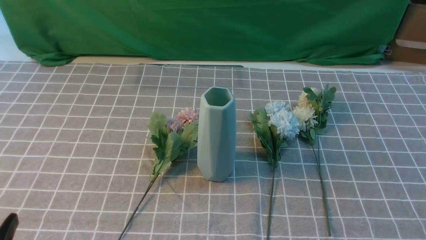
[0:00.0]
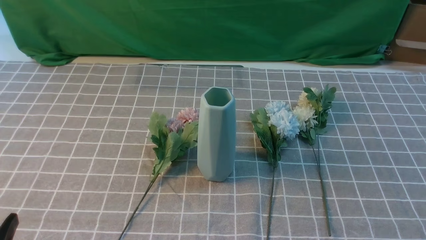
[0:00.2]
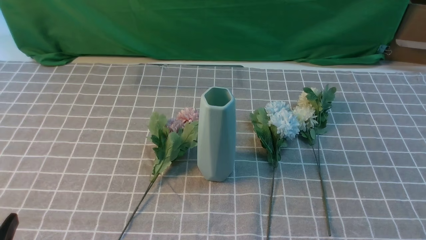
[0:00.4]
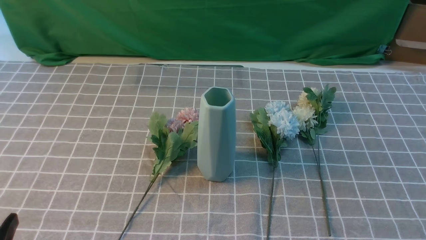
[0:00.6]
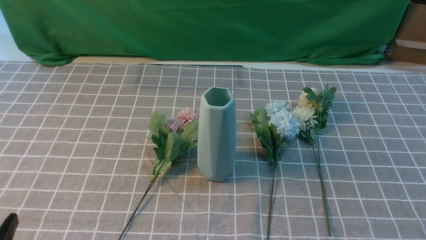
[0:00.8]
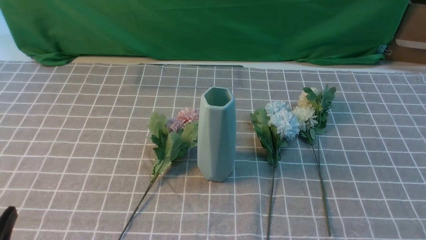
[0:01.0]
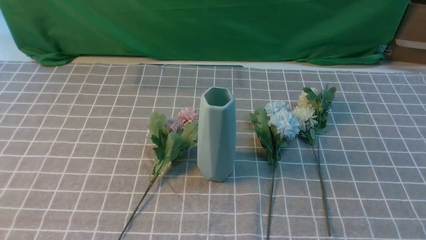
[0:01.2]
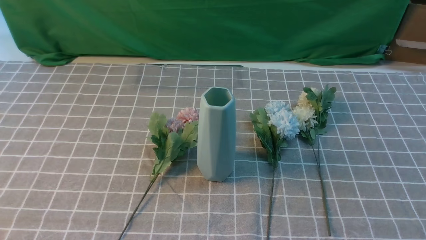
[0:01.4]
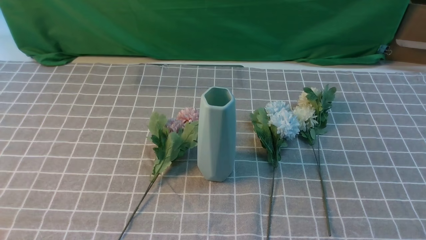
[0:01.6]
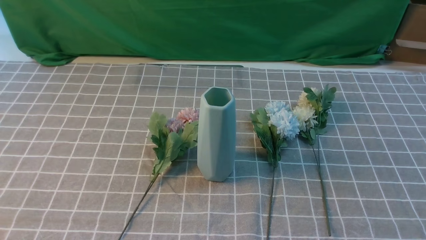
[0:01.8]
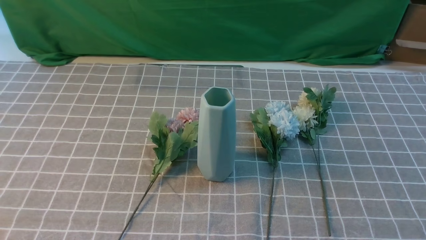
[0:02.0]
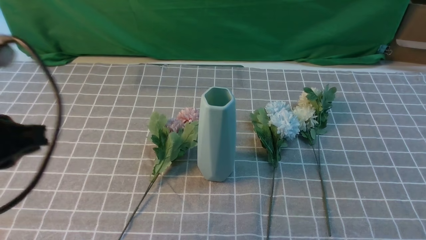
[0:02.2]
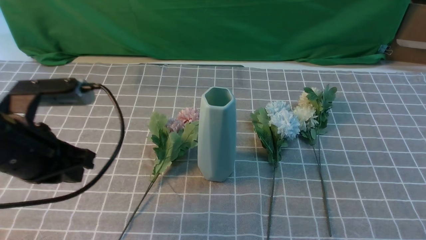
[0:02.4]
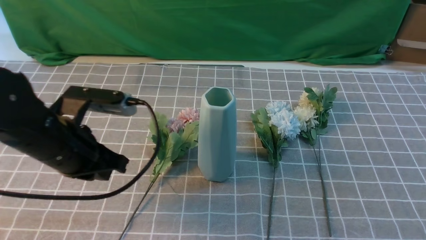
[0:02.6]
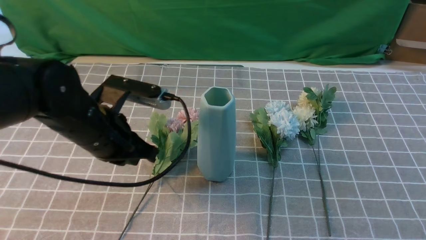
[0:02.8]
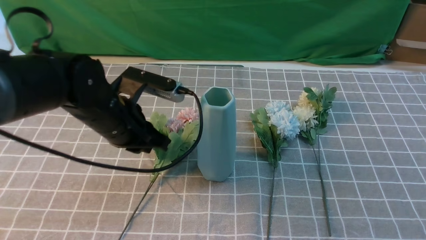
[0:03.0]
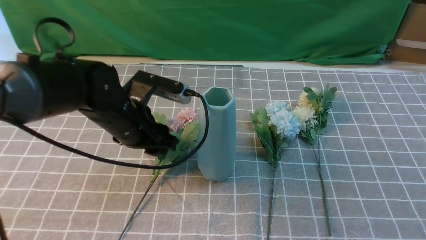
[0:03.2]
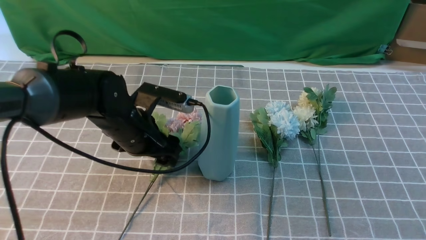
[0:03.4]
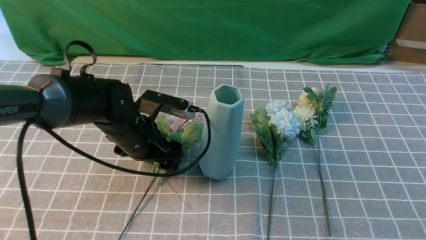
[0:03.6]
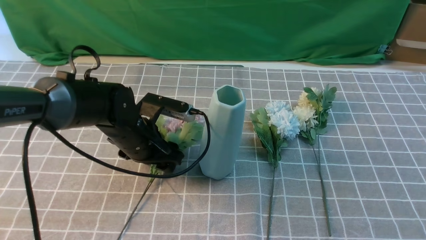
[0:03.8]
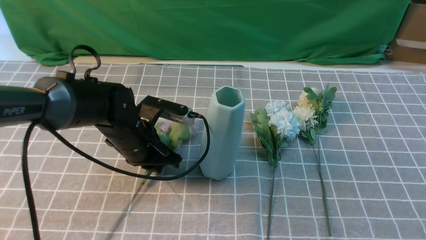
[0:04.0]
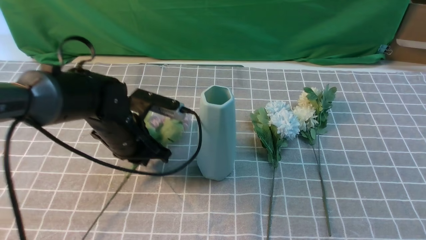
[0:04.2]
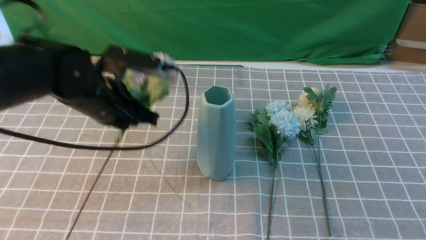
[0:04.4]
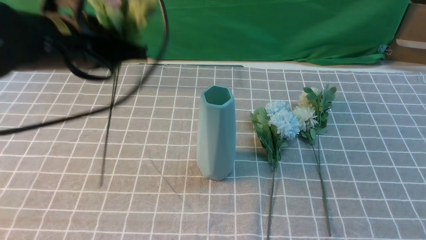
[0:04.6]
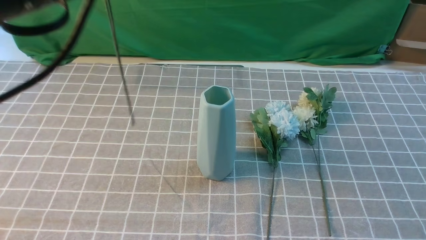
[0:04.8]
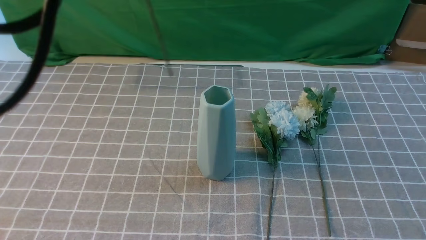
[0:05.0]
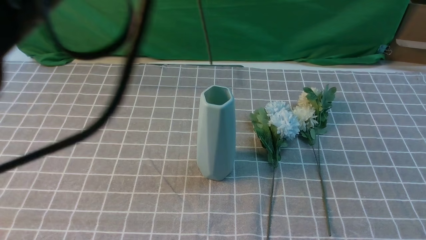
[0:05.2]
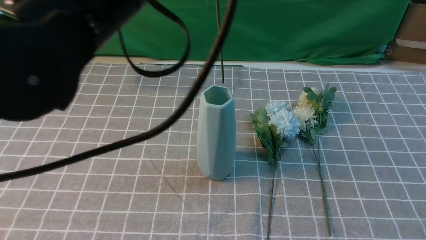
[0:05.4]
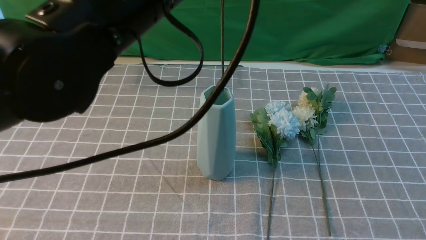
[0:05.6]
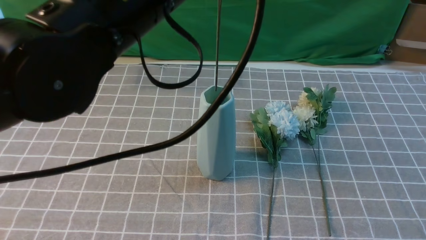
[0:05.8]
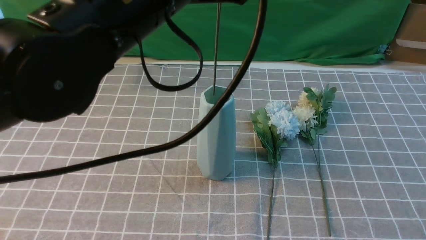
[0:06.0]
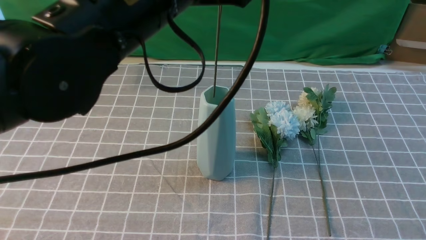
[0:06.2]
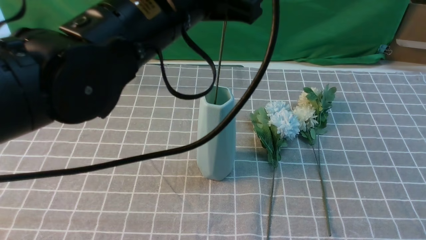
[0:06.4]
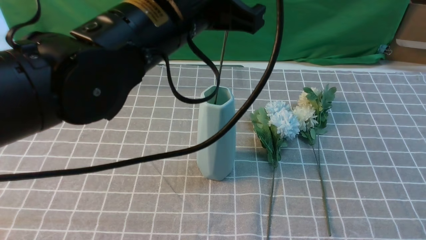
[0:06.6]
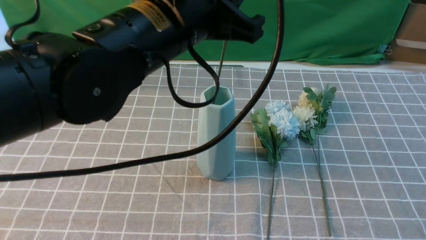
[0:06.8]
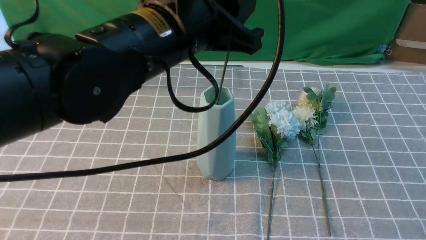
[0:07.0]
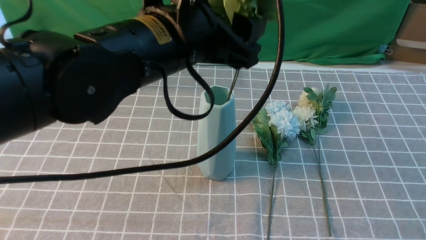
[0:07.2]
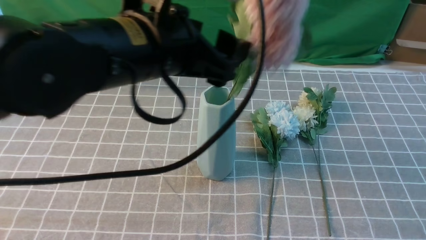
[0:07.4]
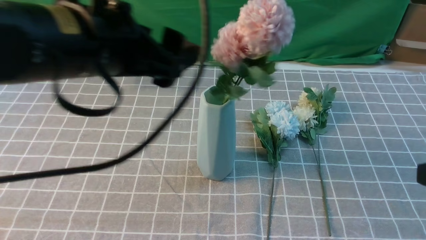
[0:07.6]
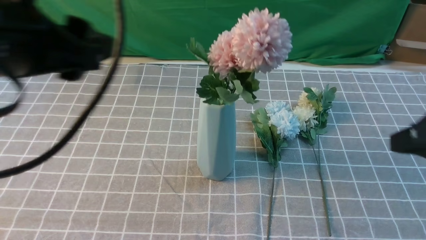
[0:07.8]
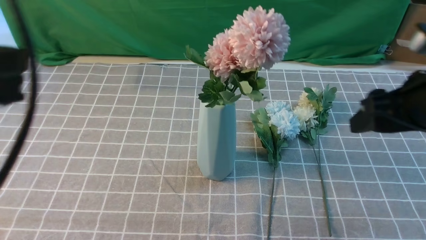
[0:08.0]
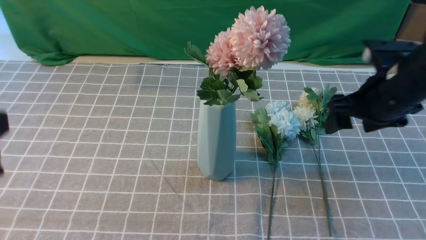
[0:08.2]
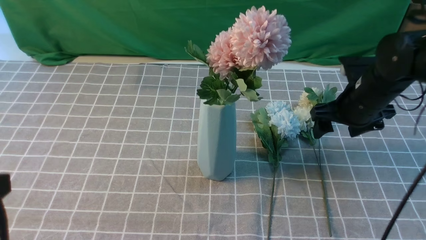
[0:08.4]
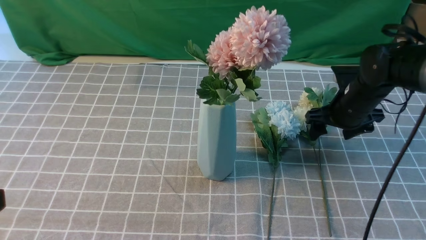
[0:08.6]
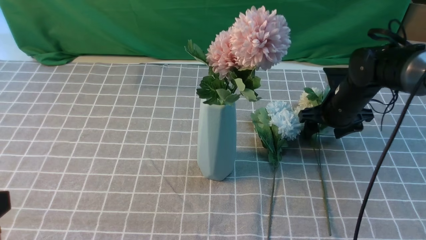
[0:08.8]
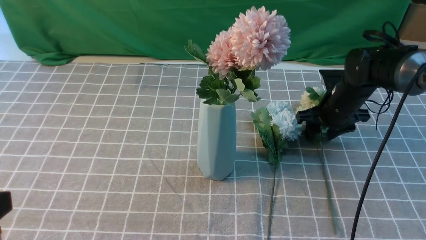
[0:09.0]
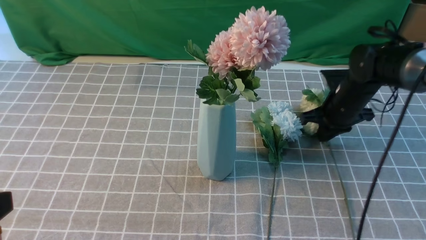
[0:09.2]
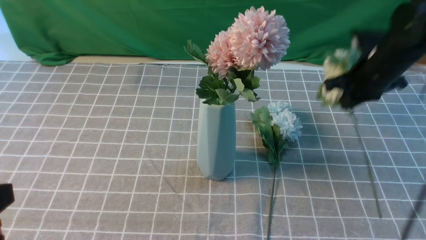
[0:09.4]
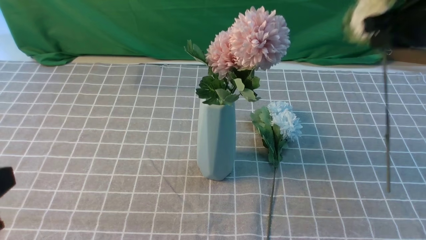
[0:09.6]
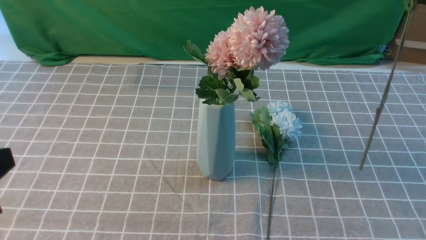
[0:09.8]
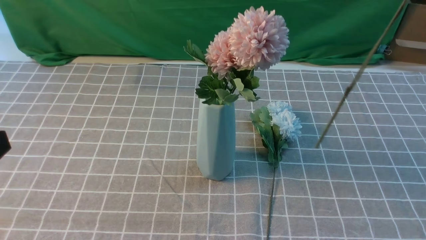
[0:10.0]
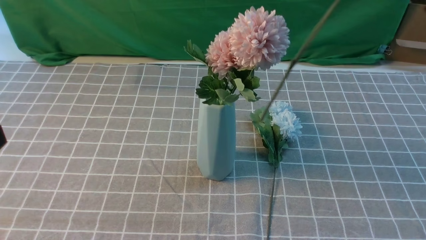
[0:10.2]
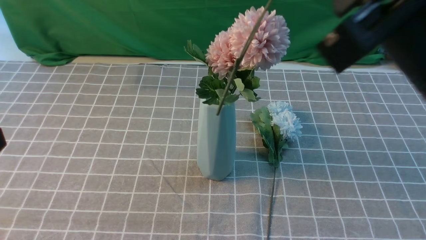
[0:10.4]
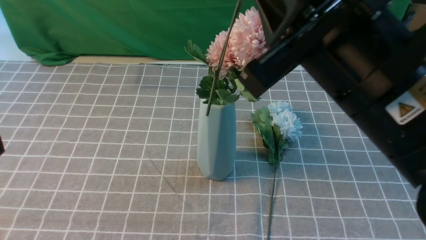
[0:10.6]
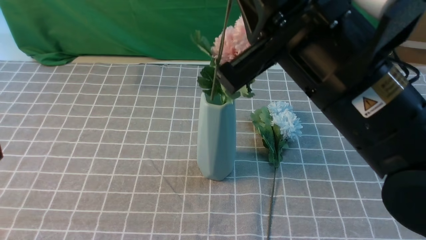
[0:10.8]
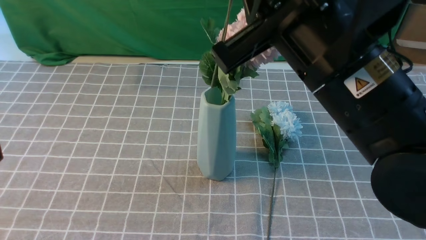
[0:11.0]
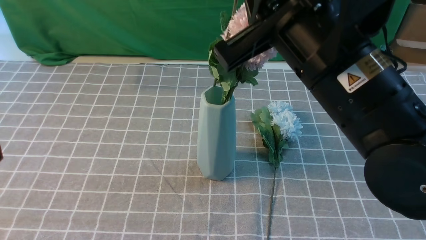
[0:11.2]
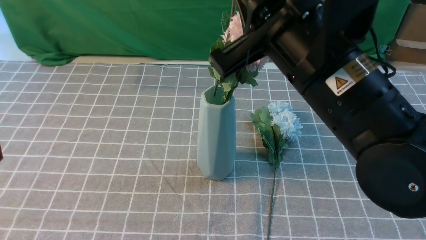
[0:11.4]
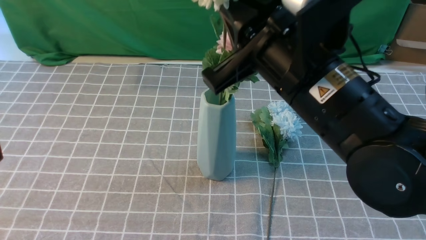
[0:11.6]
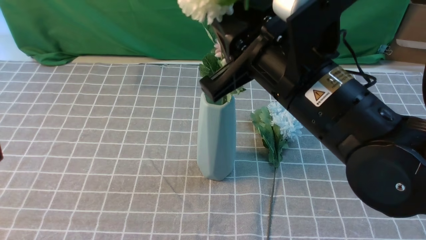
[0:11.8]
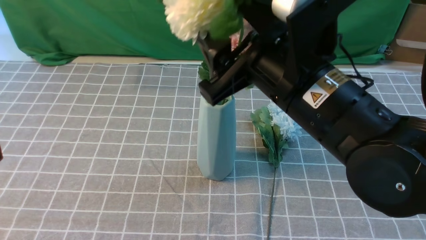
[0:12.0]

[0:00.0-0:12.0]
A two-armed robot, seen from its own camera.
Task of the whole recording: insert the flowers into the vase on the table with the grey tablecloth.
Step, 0:00.0 to 0:03.8: use the left arm to grab a bunch of fresh flowers.
Step, 0:04.0 to 0:07.6: use the left arm to insert the flowers into the vase.
Step, 0:07.8 to 0:09.0: use the right arm to grab a bunch of fresh flowers.
0:01.6 to 0:03.0: The right gripper shifts some 15 cm upward, and closes. Meanwhile the left gripper travels forward and to the right by about 30 cm.
0:03.0 to 0:04.4: The left gripper heads upward, covering about 5 cm, and opens, then closes again.
0:04.4 to 0:06.0: The left gripper shifts approximately 20 cm upward, to the right and backward.
0:06.0 to 0:07.6: The left gripper goes some 5 cm to the left, and opens its fingers. Meanwhile the right gripper is displaced forward by approximately 5 cm.
0:07.6 to 0:09.0: The left gripper is displaced backward, to the left and downward by approximately 20 cm, and closes up; the right gripper is displaced forward and downward by about 35 cm, and opens, then closes once more.
0:09.0 to 0:10.4: The right gripper moves backward and upward, some 40 cm, and closes its fingers.
0:10.4 to 0:12.0: The right gripper goes some 10 cm downward, forward and to the left, and opens up.

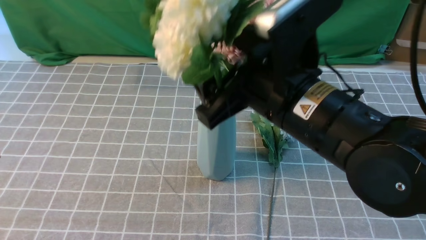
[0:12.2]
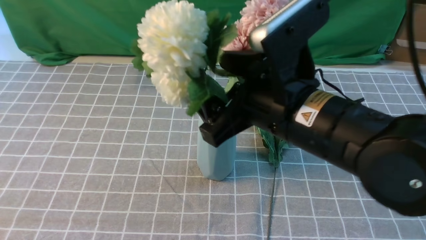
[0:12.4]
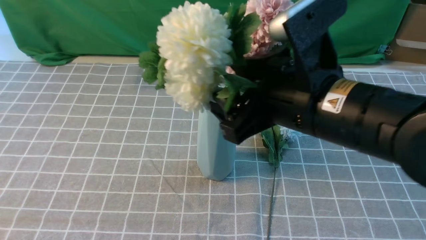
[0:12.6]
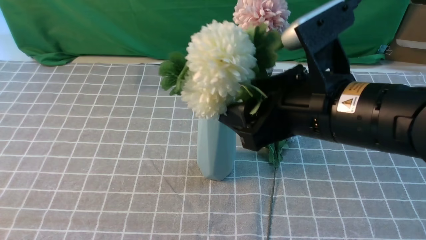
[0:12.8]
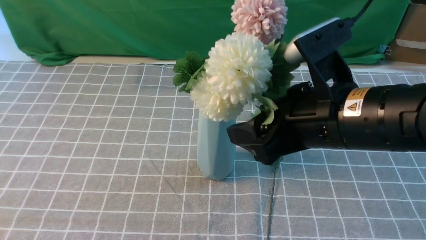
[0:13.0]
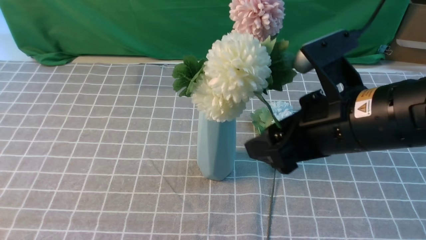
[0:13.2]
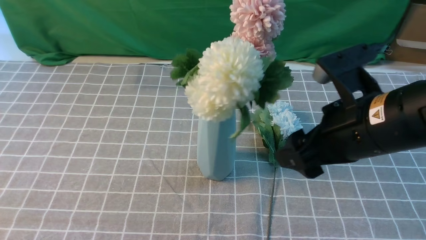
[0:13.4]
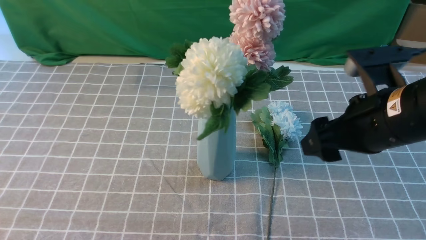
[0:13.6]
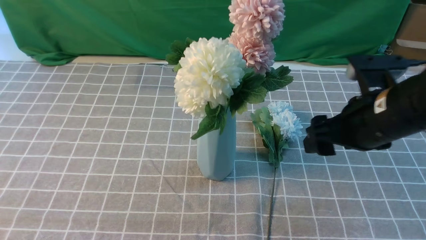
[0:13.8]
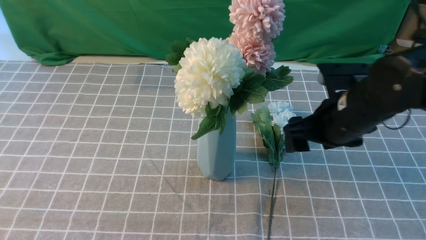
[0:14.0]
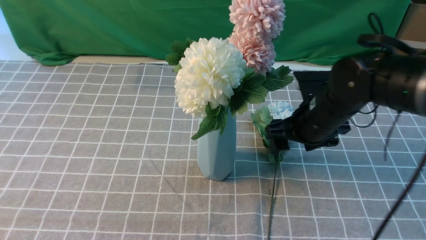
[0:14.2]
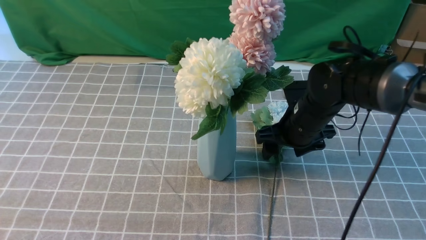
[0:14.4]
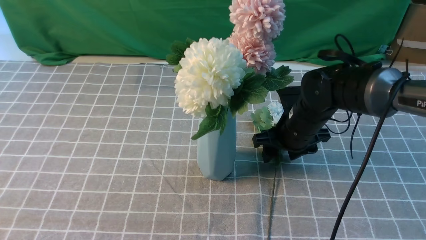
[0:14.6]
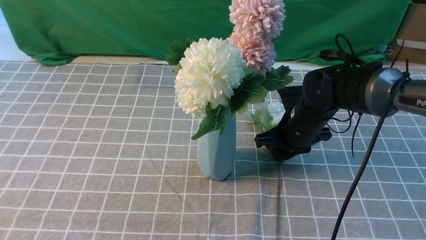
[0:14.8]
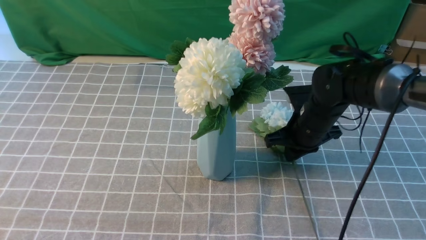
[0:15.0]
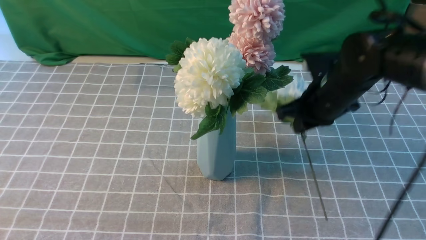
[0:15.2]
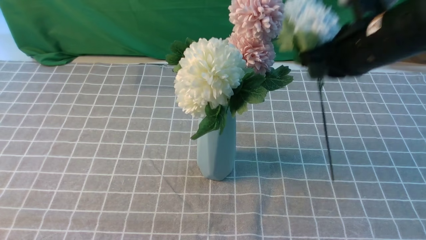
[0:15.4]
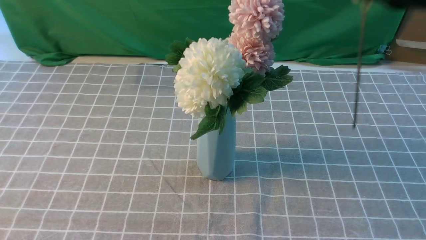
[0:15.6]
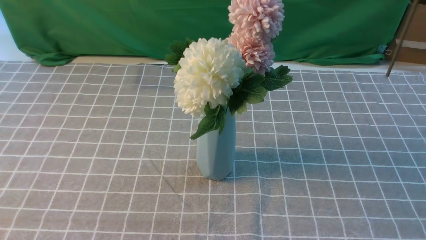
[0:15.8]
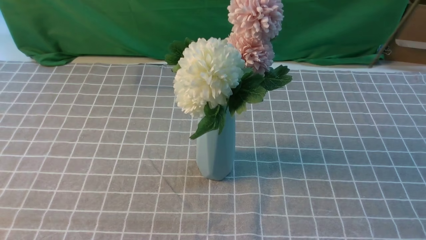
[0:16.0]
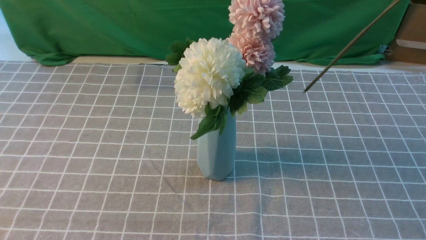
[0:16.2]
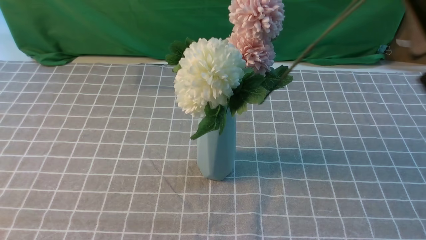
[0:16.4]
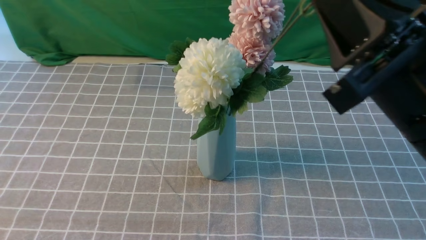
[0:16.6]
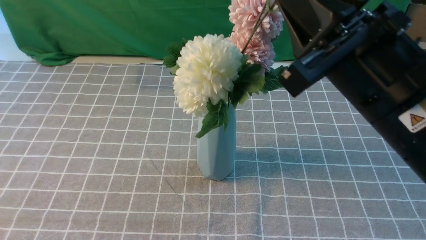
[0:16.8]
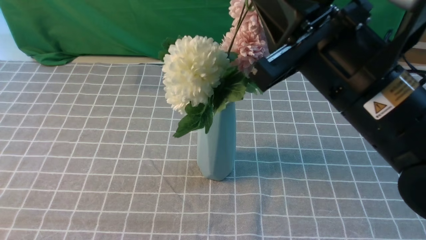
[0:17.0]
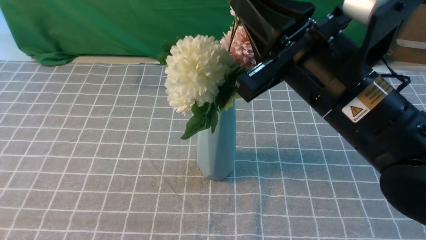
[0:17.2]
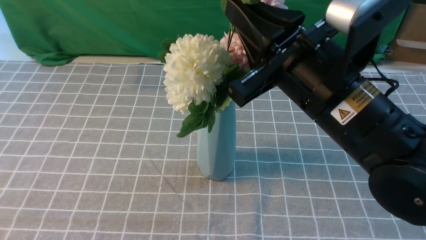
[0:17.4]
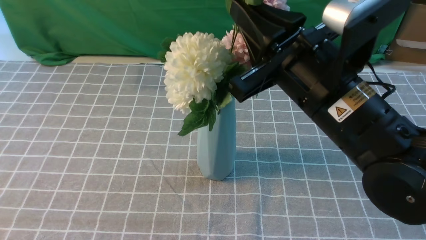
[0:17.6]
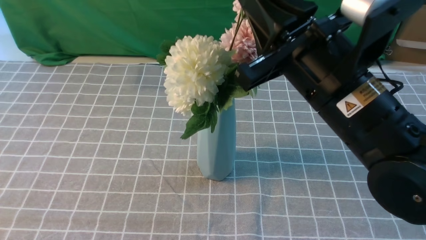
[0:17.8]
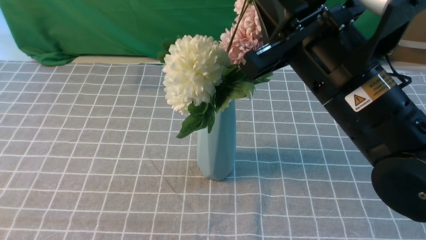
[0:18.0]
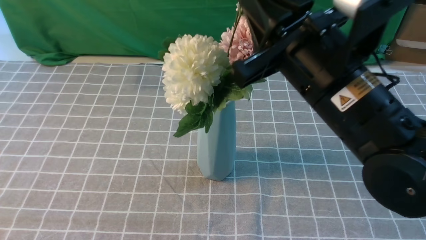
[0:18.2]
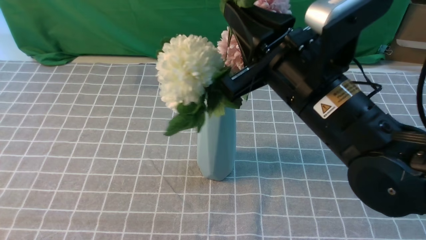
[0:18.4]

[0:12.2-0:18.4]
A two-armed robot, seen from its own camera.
Task of the whole recording: insert the flowers into the vase on the table with the grey tablecloth.
Step, 0:13.0 to 0:15.0: use the right arm to grab a bunch of fresh flowers.
0:12.2 to 0:13.8: The right gripper goes some 15 cm to the right, downward and forward.
0:13.8 to 0:15.4: The right gripper heads upward, covering approximately 10 cm, and closes its fingers.
0:15.4 to 0:16.8: The right gripper shifts approximately 15 cm backward.
0:16.8 to 0:18.4: The right gripper is displaced forward by roughly 5 cm.
